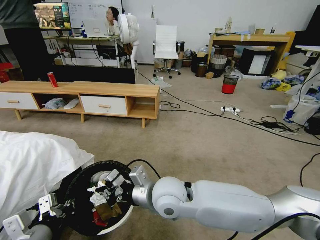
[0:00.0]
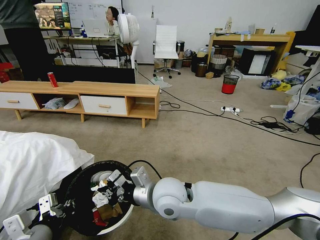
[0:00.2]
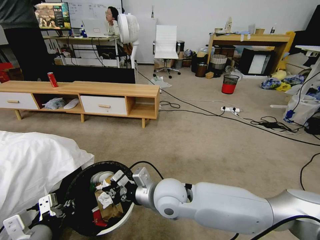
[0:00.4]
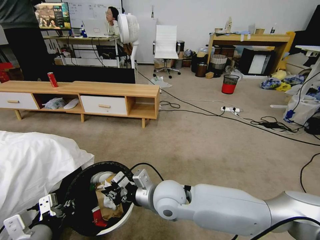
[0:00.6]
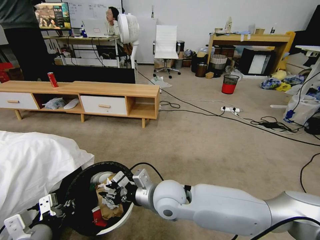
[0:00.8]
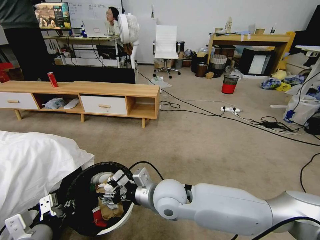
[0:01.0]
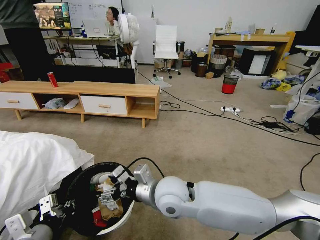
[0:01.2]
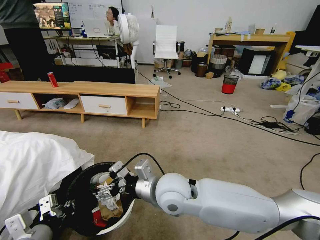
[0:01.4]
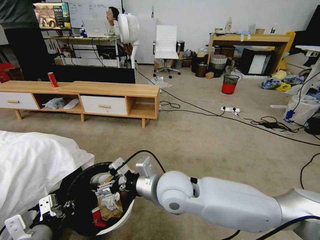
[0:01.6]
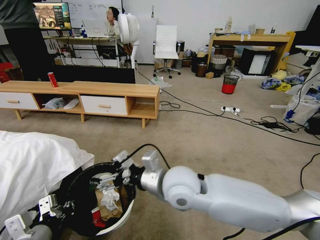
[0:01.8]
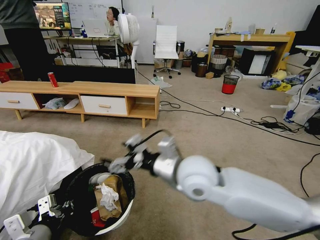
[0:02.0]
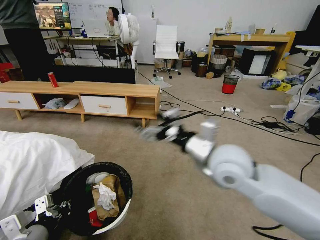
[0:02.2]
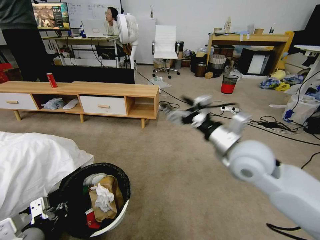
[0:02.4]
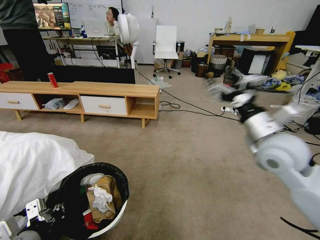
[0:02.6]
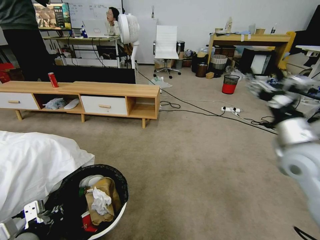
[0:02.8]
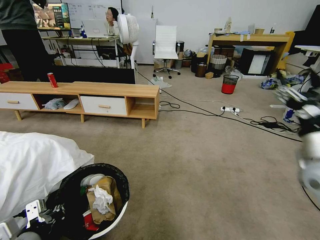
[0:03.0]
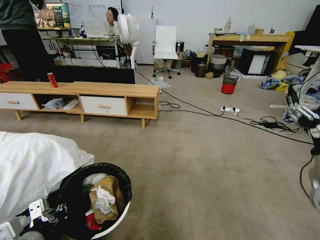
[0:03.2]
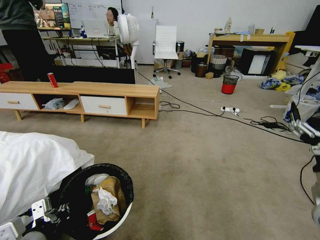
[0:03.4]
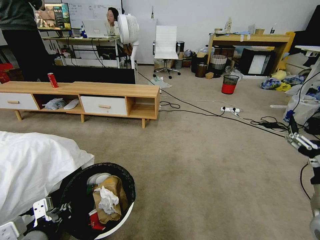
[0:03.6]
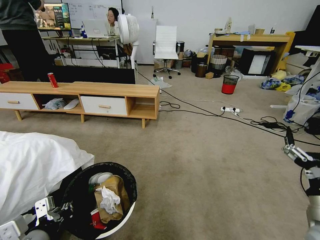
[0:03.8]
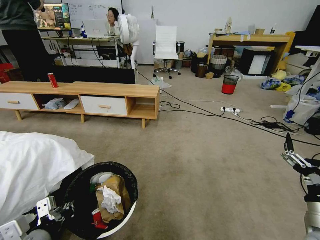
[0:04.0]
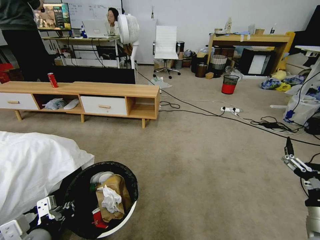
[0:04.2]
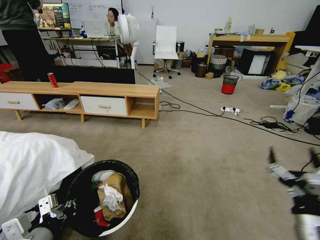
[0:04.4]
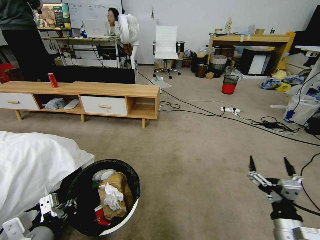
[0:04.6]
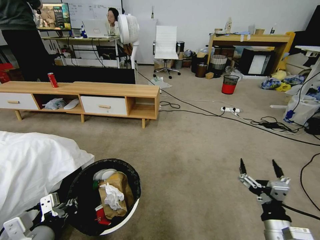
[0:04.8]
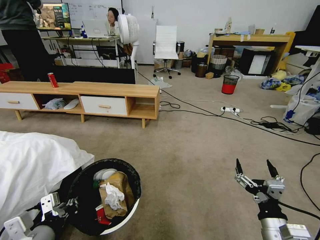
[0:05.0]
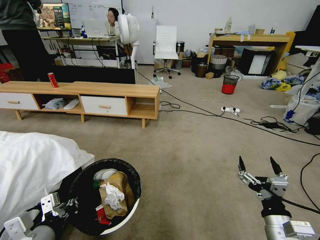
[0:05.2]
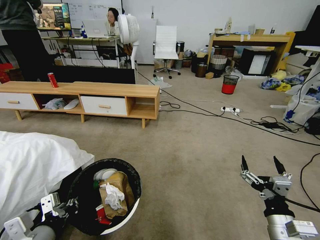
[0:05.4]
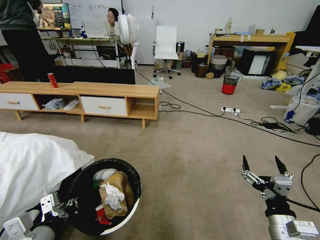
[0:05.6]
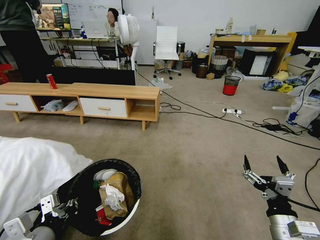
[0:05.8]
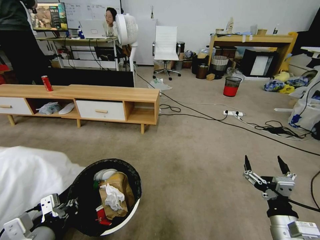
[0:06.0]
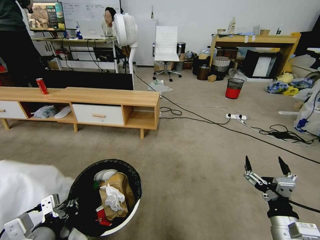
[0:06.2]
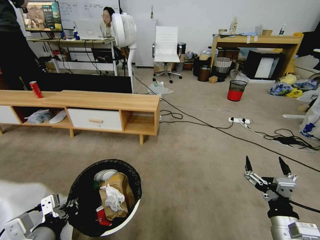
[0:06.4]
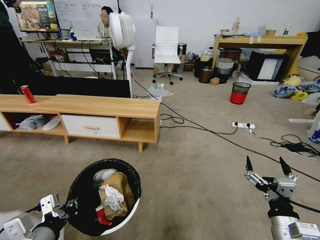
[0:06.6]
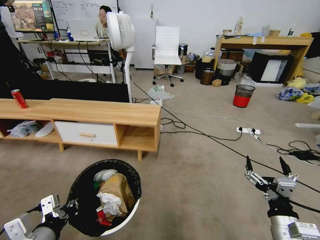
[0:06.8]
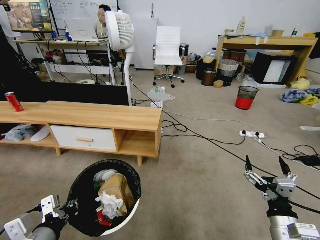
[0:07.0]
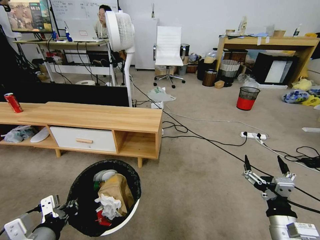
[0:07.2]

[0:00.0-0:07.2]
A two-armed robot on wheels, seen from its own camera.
Task of the whole recording: Pick up the trash bin and place the garbage on the floor into it.
0:00.0 to 0:01.4: The right gripper opens up.
0:01.4 to 0:02.8: The right gripper goes about 30 cm to the right.
0:02.8 to 0:04.4: The right gripper is displaced downward and backward by roughly 25 cm.

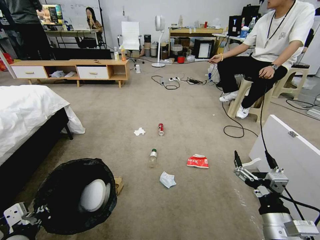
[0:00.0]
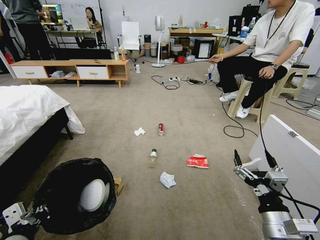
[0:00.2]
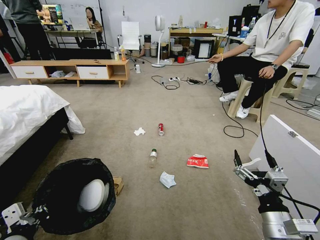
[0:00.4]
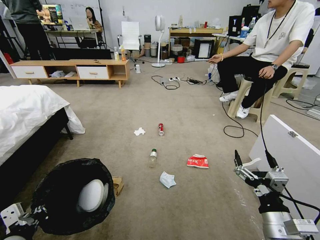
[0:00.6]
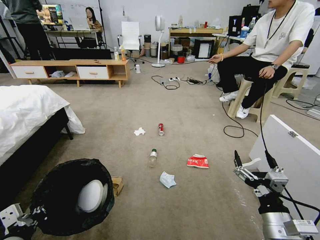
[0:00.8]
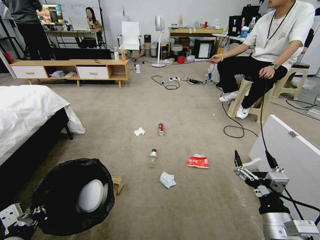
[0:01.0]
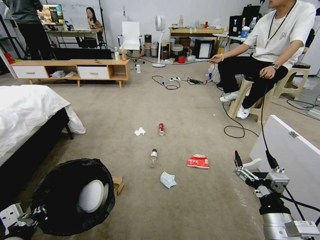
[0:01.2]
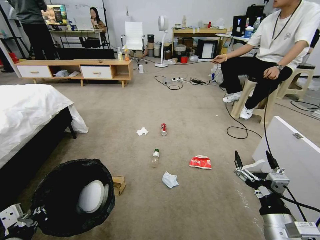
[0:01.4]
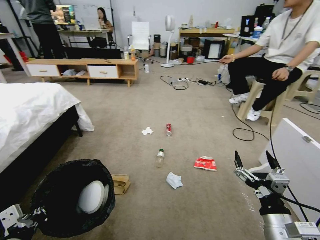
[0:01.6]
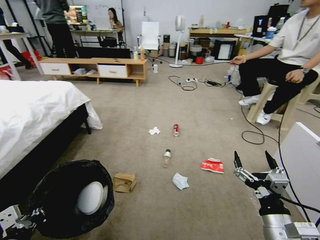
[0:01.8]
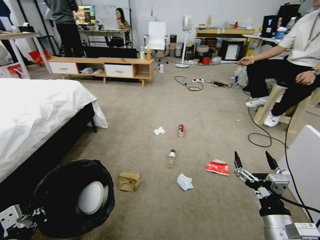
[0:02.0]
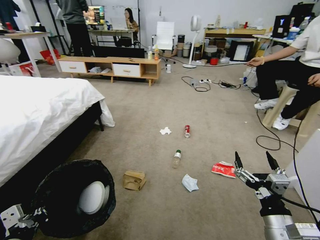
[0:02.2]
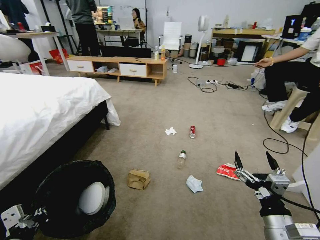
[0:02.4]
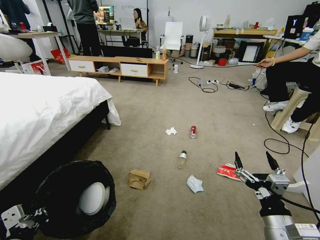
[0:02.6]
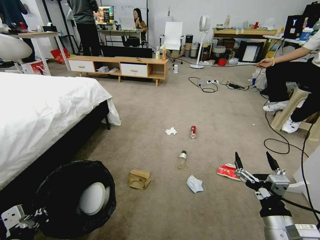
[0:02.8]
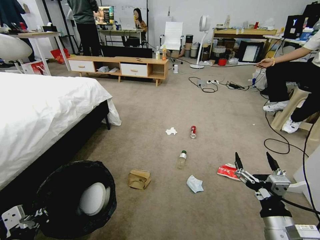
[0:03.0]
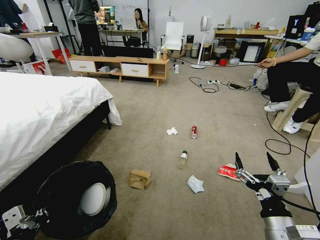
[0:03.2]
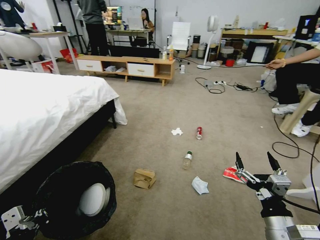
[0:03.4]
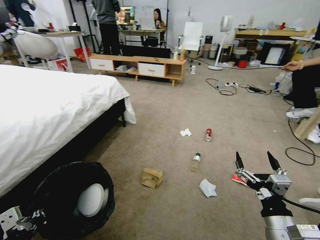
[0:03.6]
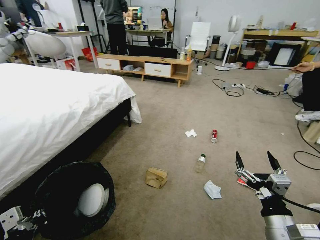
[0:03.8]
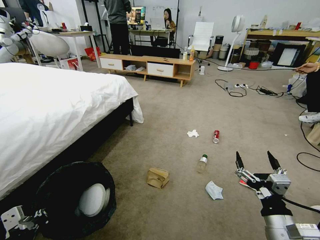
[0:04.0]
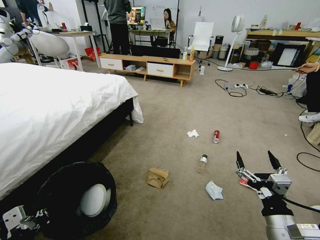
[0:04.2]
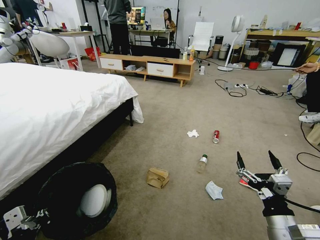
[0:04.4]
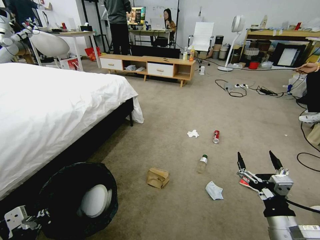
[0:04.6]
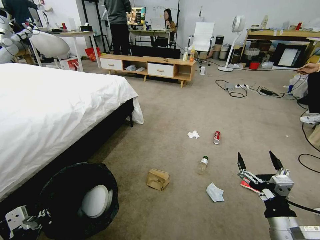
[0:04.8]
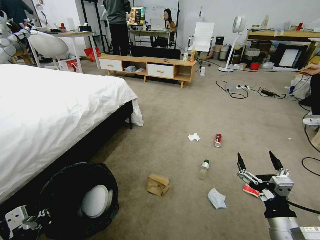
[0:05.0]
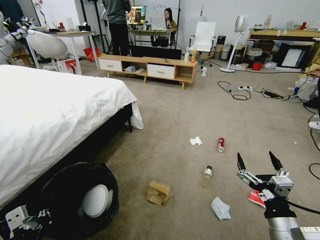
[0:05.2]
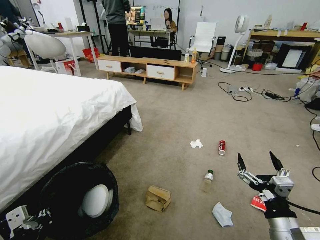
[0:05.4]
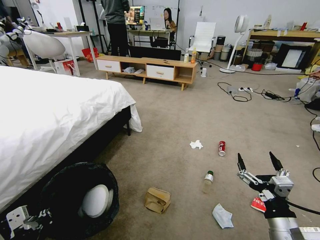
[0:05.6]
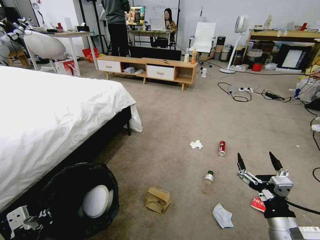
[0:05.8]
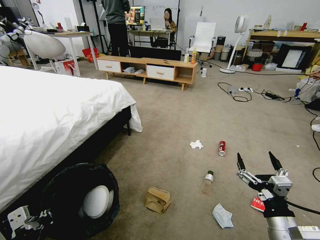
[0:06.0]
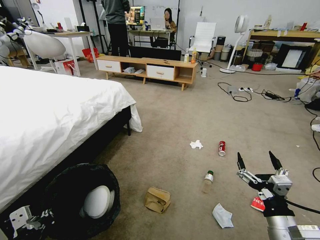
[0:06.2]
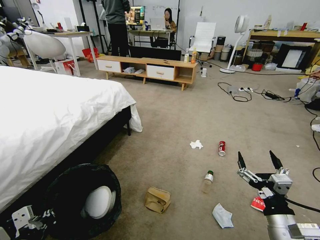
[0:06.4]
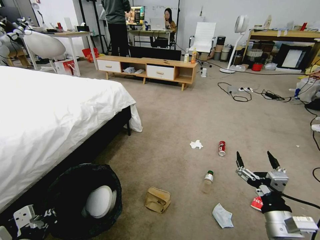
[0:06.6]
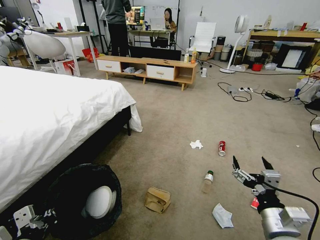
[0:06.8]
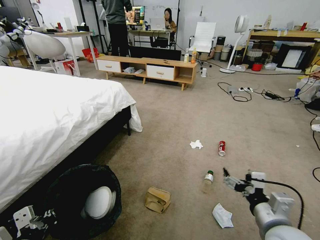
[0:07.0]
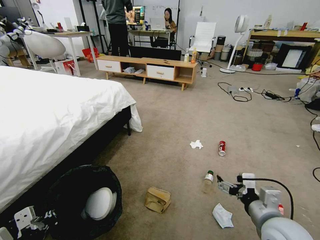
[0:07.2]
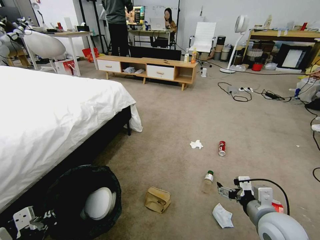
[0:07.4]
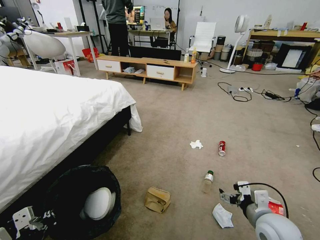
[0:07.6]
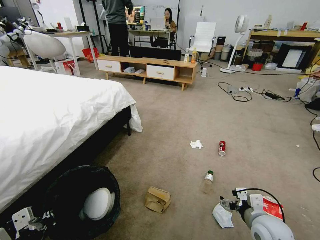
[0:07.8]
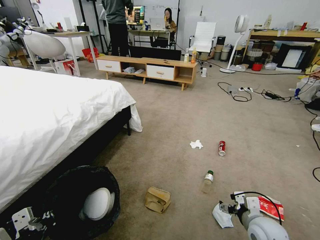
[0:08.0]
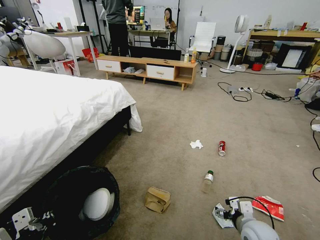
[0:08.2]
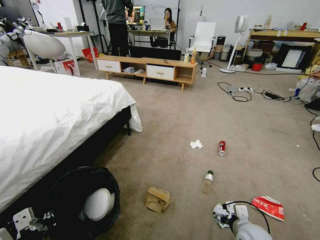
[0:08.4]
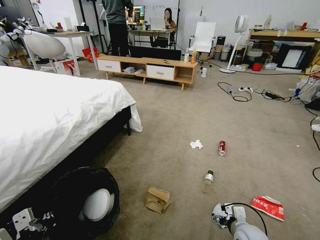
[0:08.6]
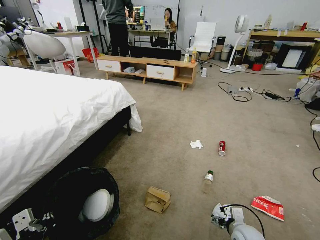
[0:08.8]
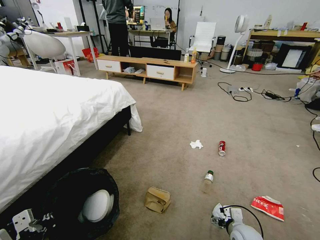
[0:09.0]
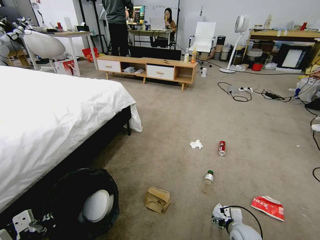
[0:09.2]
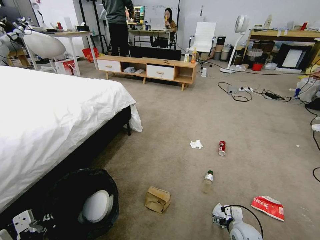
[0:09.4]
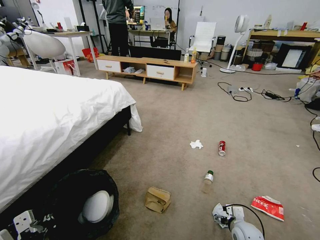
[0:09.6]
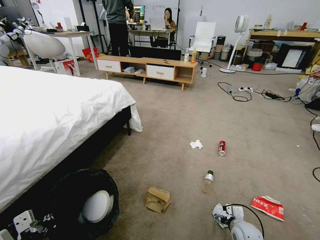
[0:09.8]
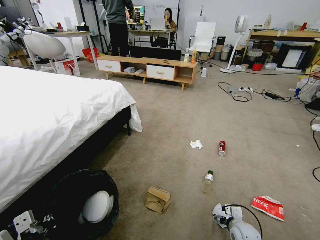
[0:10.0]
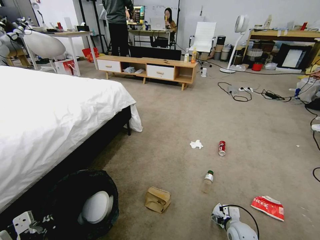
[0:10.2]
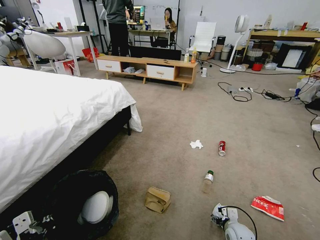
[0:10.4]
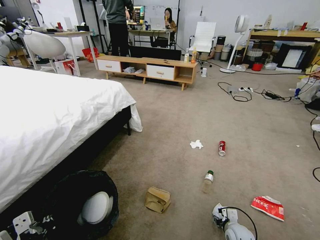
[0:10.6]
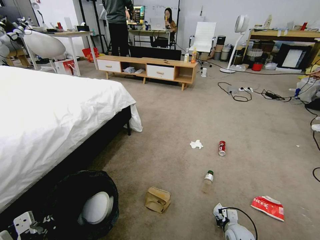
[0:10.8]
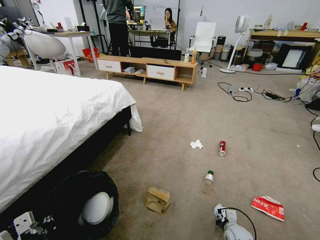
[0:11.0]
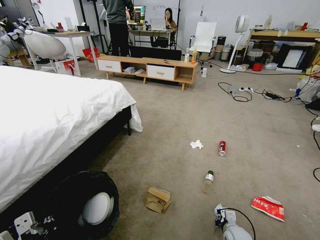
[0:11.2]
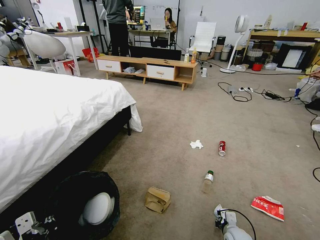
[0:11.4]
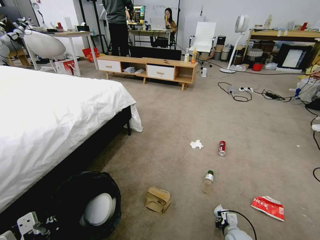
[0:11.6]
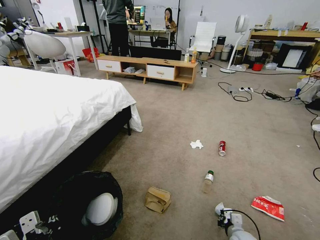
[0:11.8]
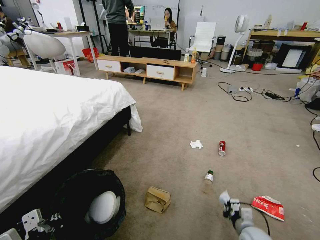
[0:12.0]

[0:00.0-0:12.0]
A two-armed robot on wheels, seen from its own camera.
Task of the whole recording: Pick up the trash bin and place the garbage on the floor into it.
0:06.0 to 0:07.6: The right gripper travels forward by some 10 cm.
0:07.6 to 0:09.0: The right gripper is displaced downward by about 15 cm.
0:09.0 to 0:10.4: The right gripper goes approximately 5 cm downward.
0:10.4 to 0:12.0: The right gripper changes place by some 5 cm, and closes up.

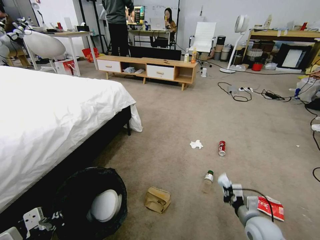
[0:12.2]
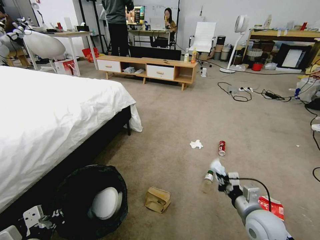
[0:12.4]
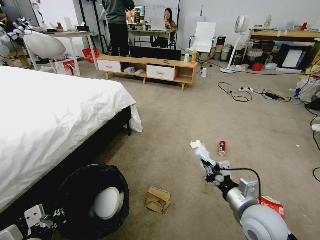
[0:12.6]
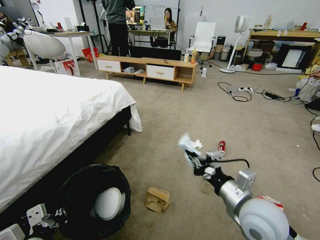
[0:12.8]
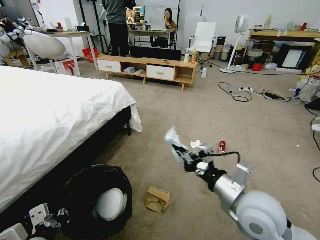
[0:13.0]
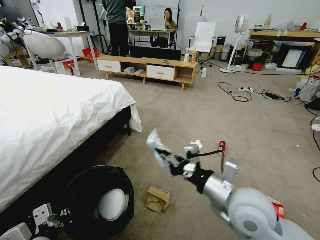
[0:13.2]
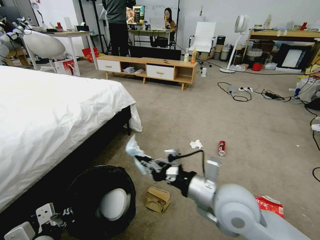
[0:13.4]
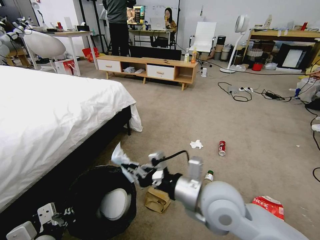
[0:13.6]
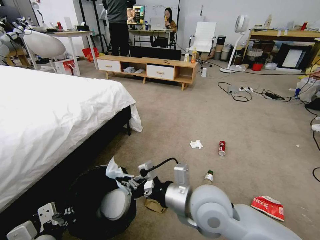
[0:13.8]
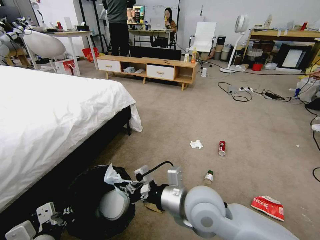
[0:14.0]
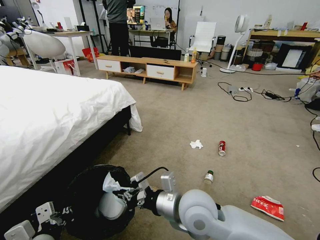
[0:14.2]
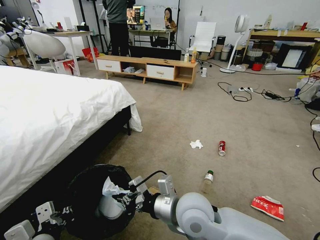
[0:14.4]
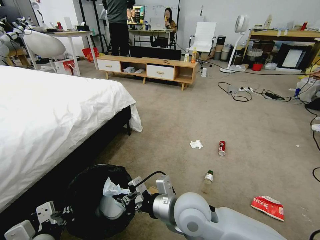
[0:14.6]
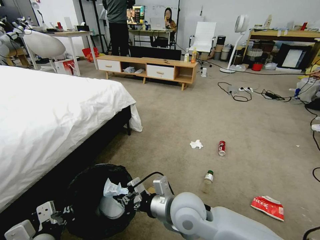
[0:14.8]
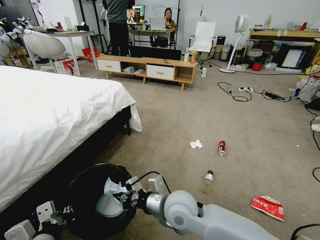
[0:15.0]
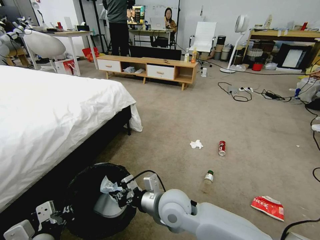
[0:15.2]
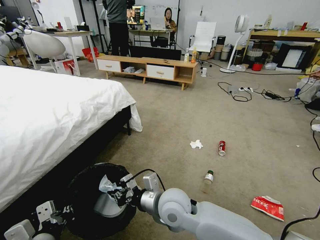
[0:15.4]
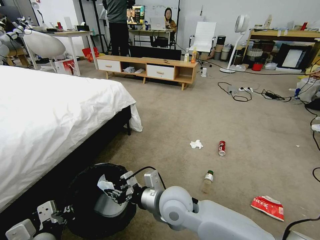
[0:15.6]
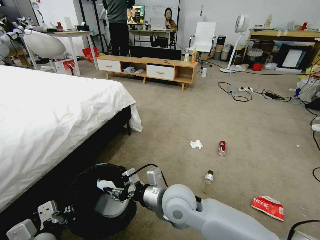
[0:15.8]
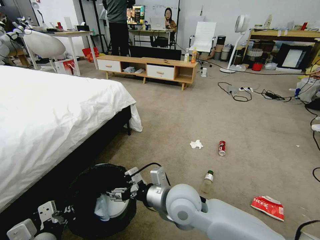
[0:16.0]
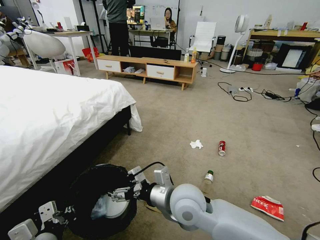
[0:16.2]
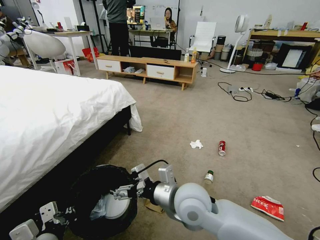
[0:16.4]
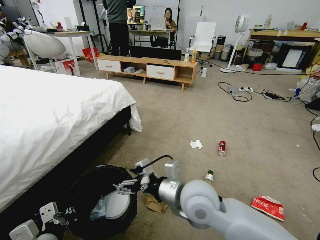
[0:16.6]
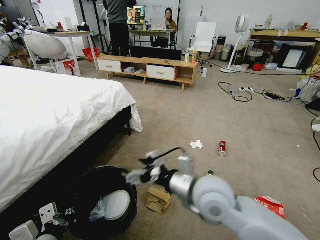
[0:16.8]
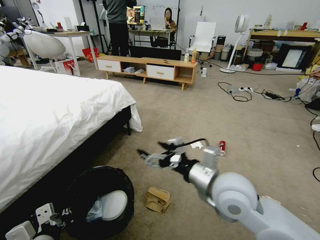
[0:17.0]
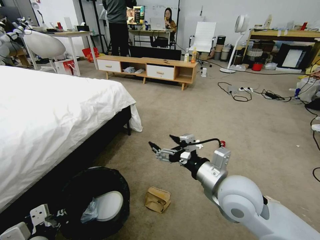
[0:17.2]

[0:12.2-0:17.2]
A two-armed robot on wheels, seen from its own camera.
Task of the whole recording: Pick up the trash bin and place the garbage on the floor into it.
0:12.2 to 0:13.8: The right gripper heads to the left and upward, covering about 30 cm.
0:13.8 to 0:15.6: The right gripper is displaced to the left and downward by about 10 cm.
0:15.6 to 0:17.2: The right gripper travels to the right and upward by roughly 15 cm, and opens.
